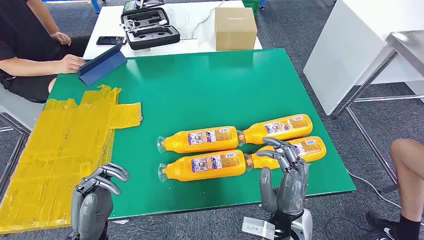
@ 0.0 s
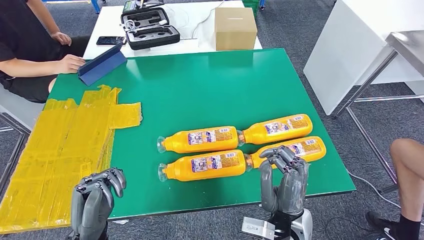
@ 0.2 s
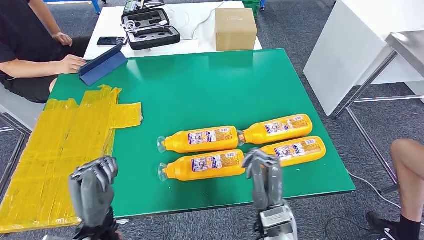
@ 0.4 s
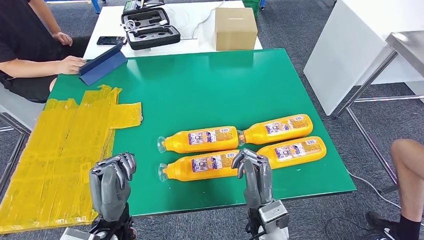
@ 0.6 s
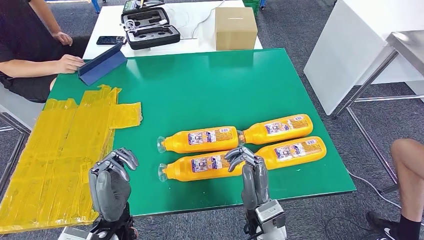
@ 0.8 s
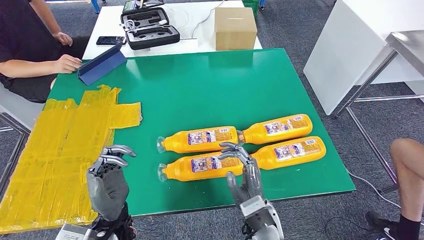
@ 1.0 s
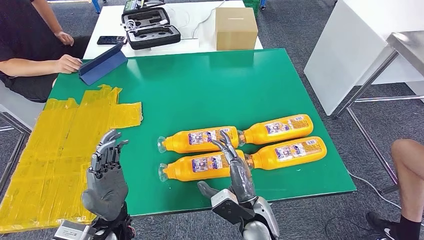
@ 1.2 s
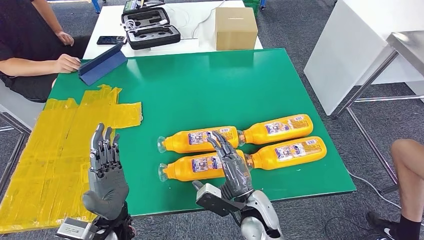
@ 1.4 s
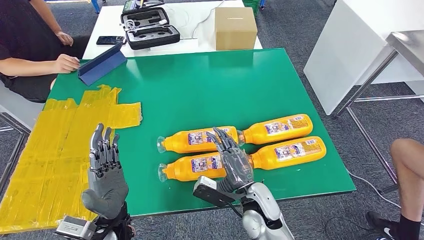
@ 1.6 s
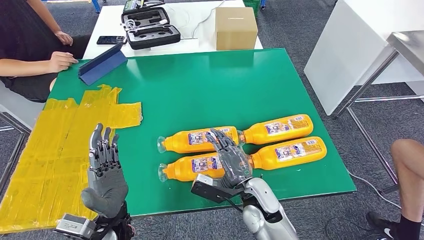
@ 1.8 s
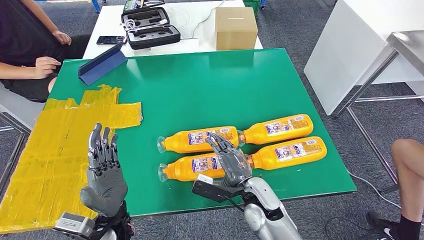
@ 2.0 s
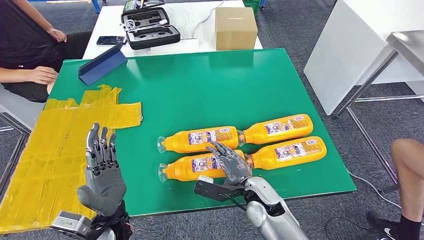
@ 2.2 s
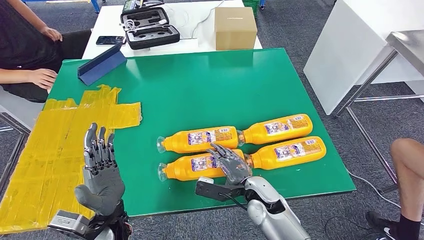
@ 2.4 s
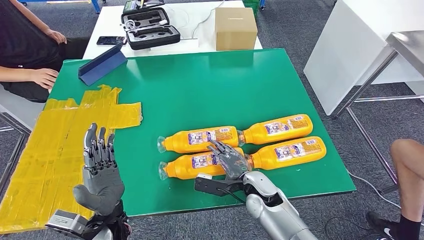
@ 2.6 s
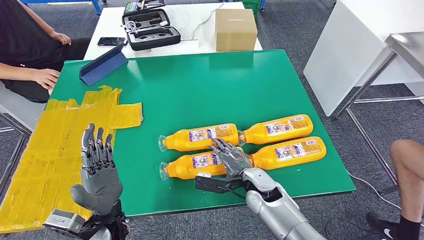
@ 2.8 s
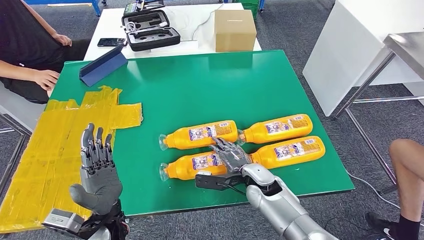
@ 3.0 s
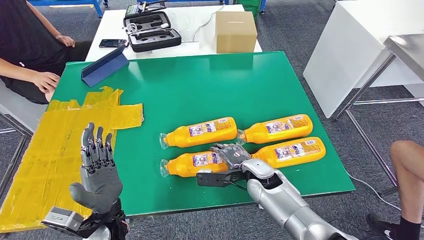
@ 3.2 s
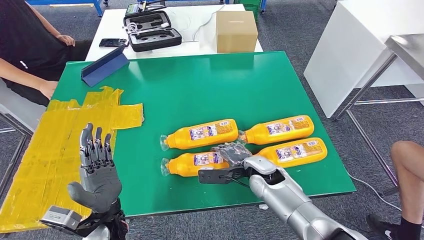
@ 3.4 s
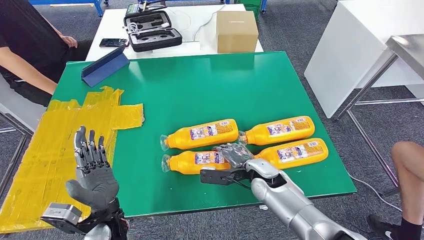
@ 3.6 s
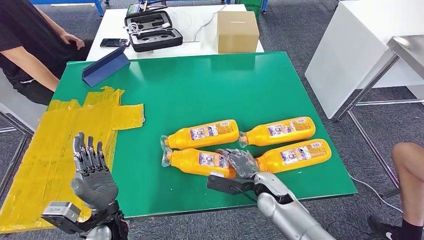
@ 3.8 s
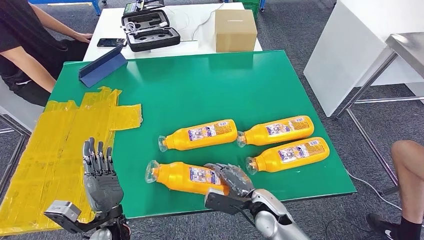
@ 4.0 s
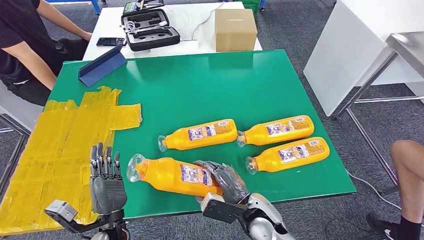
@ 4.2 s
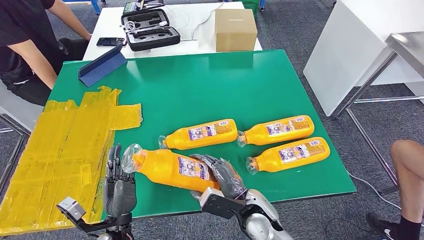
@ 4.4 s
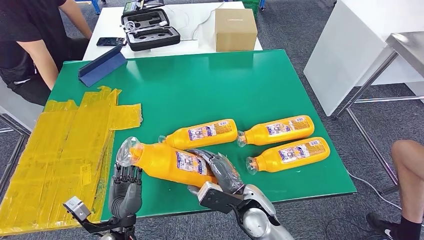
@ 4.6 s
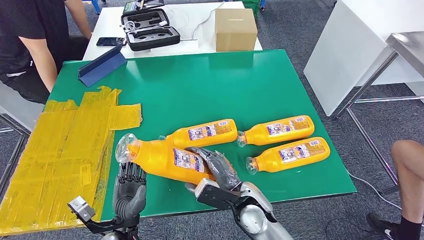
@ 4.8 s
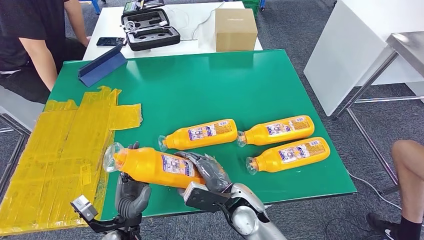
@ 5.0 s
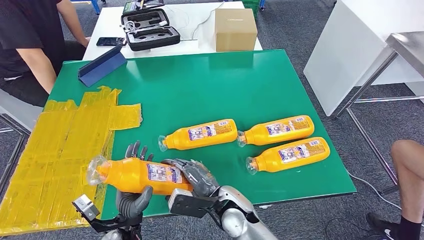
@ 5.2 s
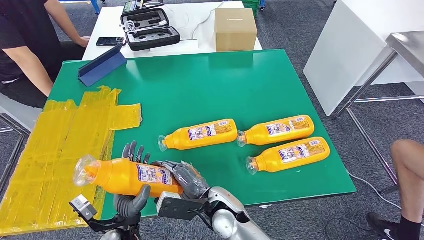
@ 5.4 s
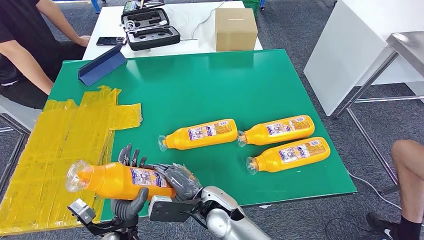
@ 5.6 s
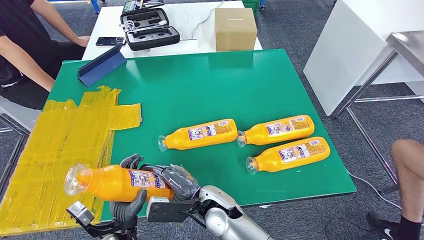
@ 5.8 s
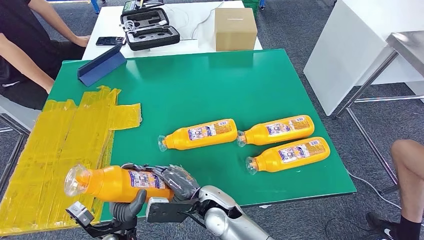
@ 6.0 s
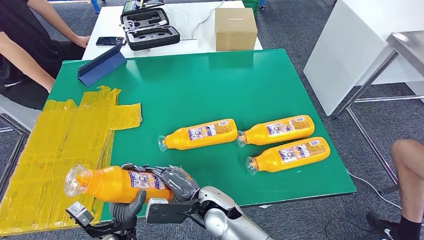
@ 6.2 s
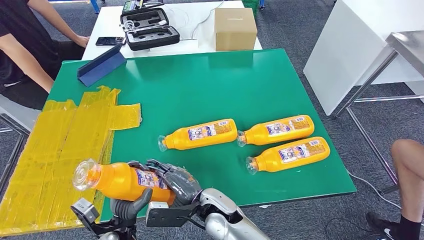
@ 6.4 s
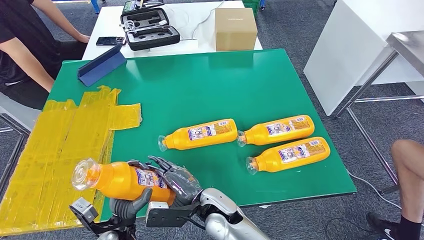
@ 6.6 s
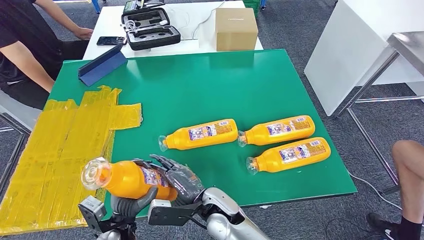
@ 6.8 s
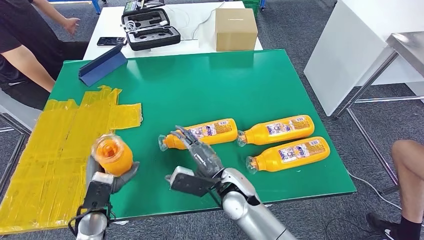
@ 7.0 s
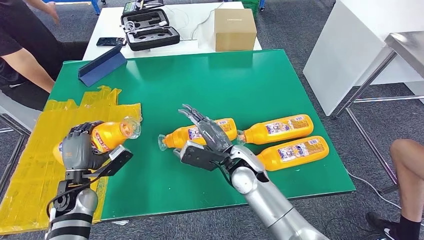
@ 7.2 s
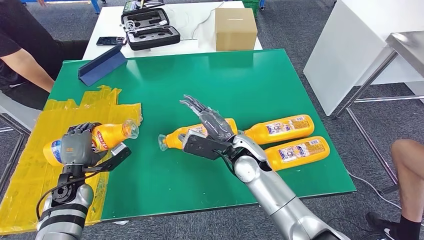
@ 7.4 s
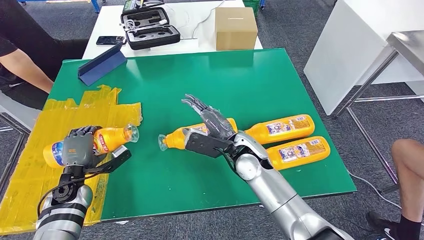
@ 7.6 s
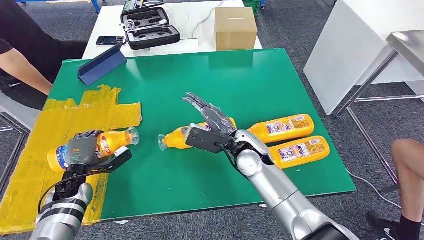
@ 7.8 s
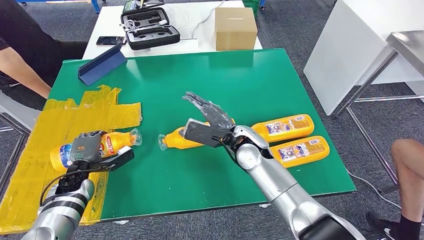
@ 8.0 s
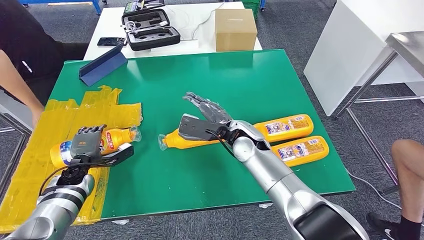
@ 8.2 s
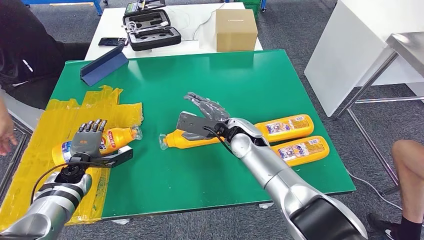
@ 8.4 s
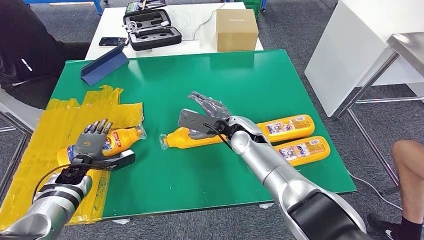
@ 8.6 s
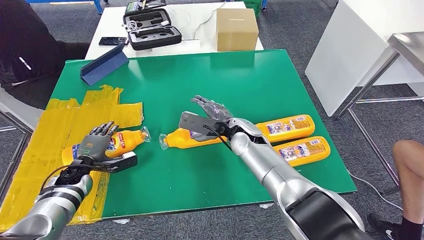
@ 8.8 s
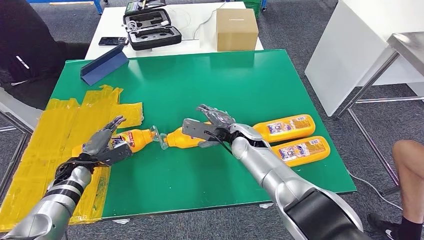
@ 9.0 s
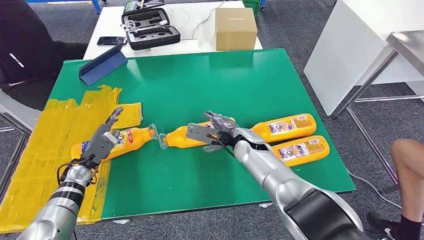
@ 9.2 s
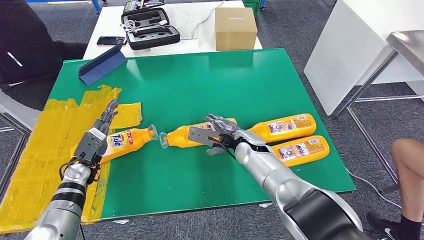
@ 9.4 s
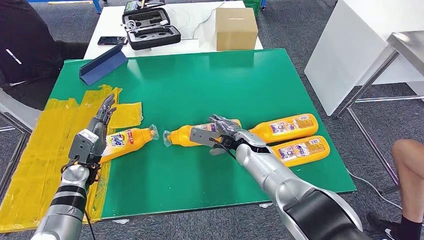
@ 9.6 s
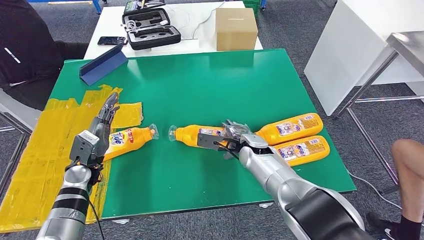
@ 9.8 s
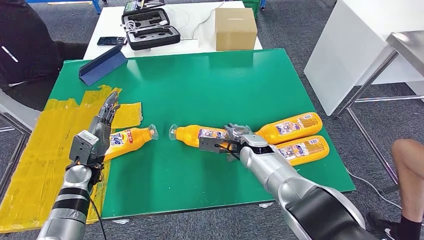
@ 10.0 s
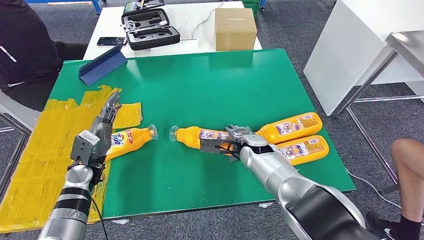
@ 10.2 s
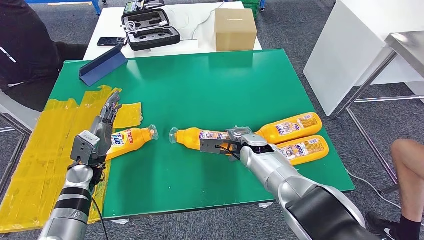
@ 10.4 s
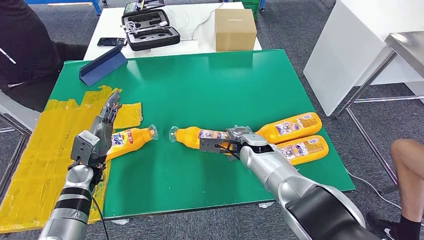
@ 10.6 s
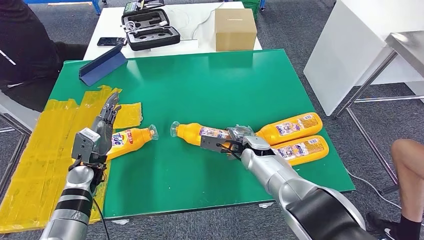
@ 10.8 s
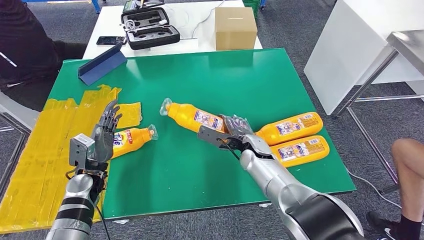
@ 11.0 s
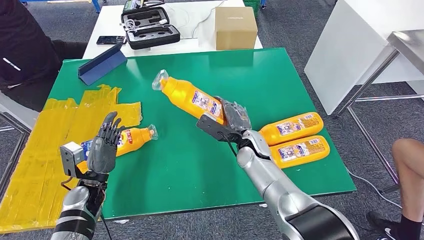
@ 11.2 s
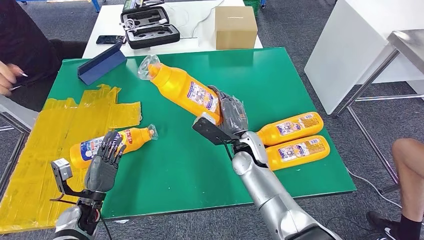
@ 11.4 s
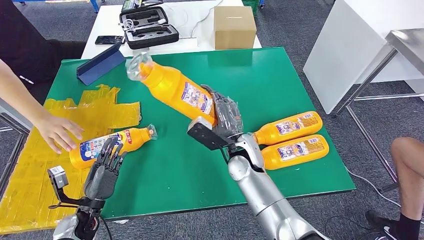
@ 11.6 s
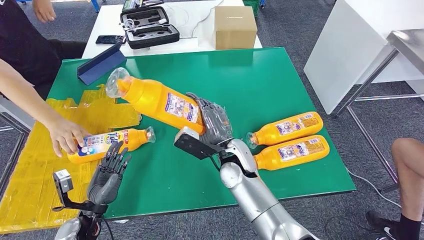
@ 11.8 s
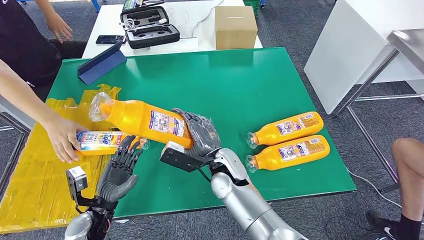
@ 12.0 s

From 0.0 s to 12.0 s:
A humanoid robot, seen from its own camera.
Step, from 0.0 s to 3.8 s: Take the bottle from the table.
Step, from 4.2 s to 9.4 s: Flip the bottle to face forward.
Step, from 9.8 s to 11.8 s: Pick up the bottle from the table.
From 1.6 s to 3.0 s: The right hand goes approximately 5 cm forward.
From 4.4 s to 6.0 s: The right hand travels to the left by approximately 10 cm.
From 9.0 s to 10.4 s: The left hand is displaced to the right by approximately 5 cm. Meanwhile the right hand ends up some 5 cm from where it was.

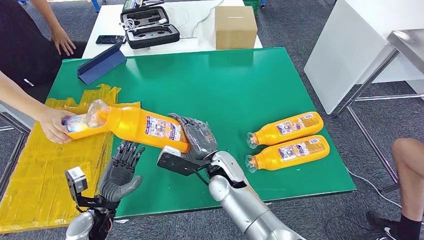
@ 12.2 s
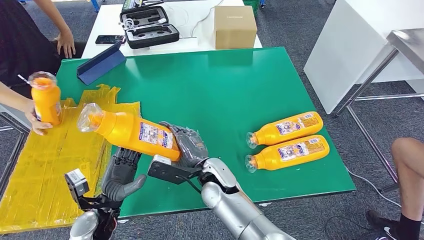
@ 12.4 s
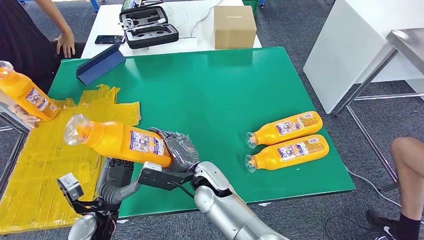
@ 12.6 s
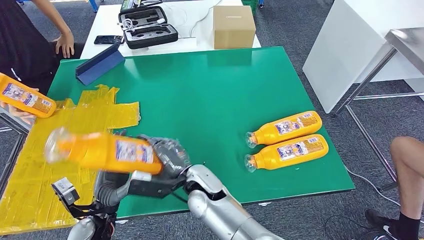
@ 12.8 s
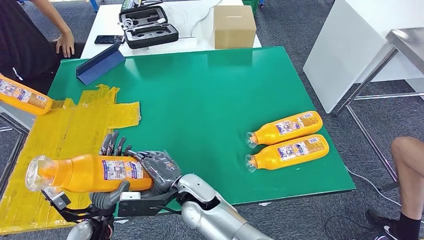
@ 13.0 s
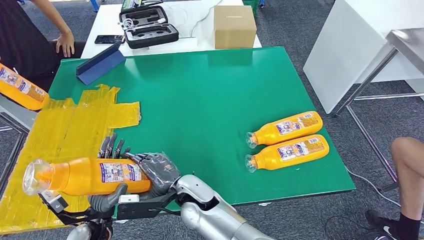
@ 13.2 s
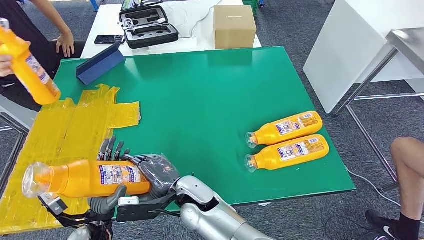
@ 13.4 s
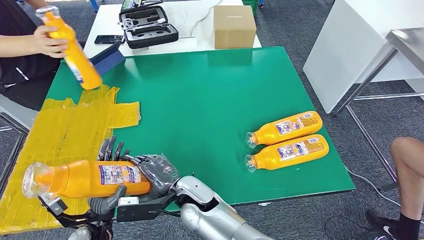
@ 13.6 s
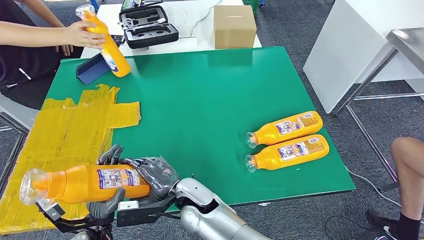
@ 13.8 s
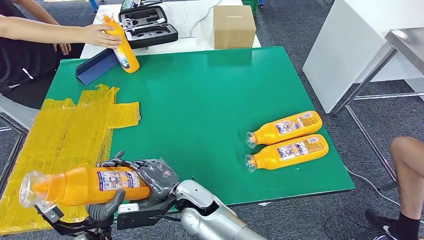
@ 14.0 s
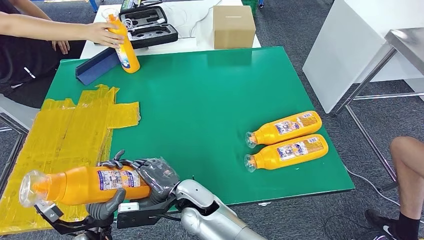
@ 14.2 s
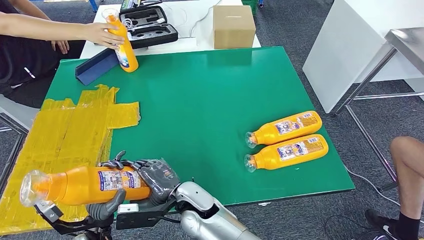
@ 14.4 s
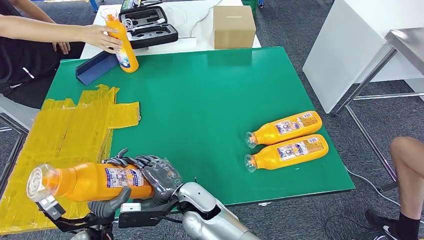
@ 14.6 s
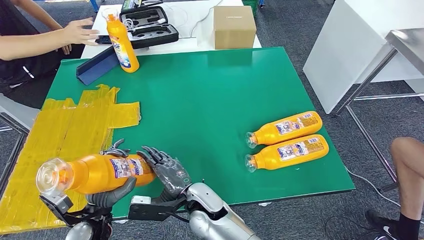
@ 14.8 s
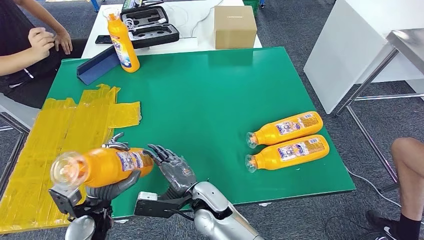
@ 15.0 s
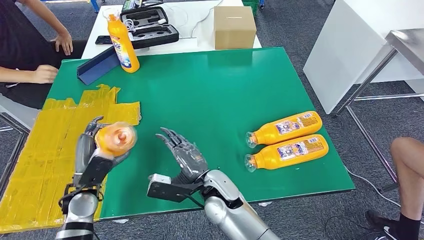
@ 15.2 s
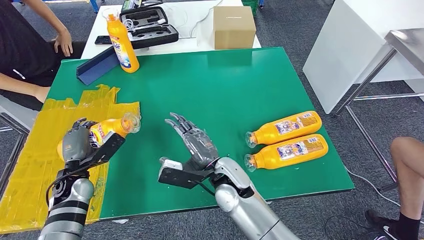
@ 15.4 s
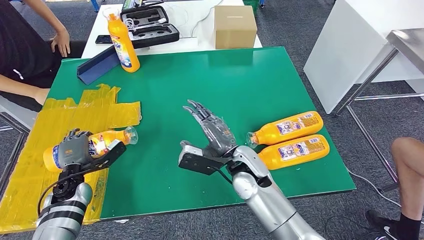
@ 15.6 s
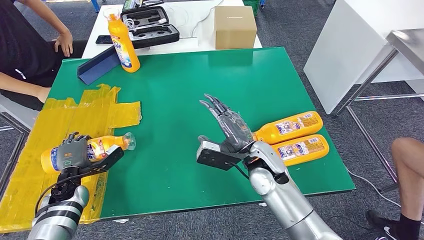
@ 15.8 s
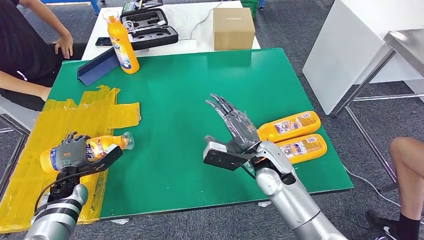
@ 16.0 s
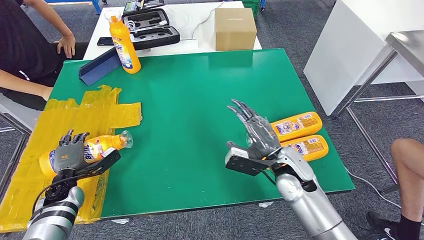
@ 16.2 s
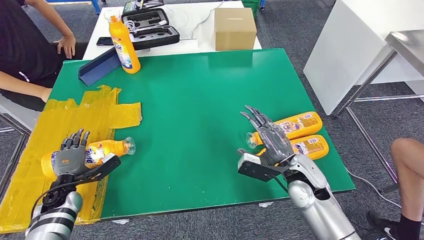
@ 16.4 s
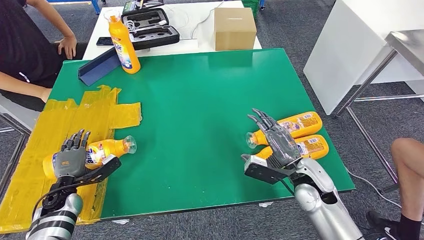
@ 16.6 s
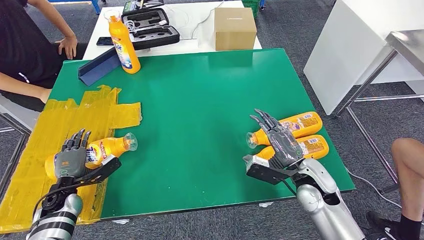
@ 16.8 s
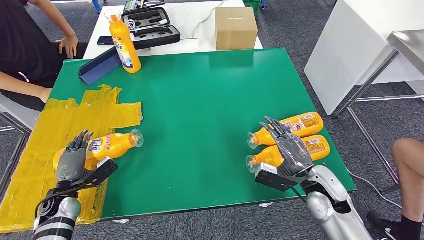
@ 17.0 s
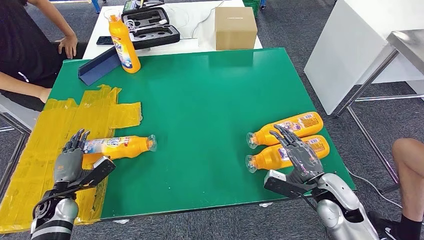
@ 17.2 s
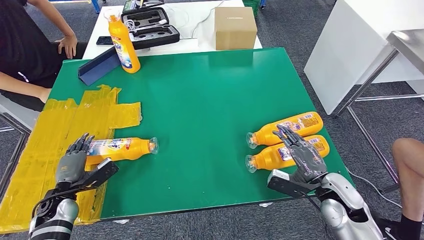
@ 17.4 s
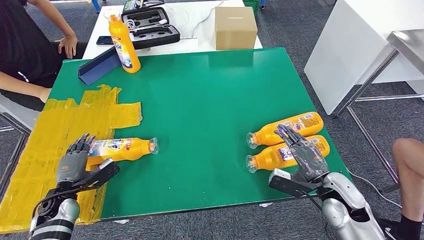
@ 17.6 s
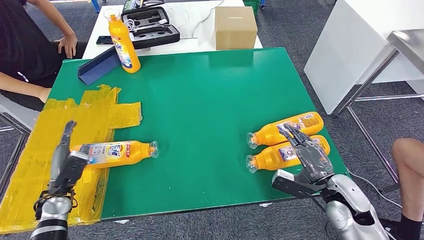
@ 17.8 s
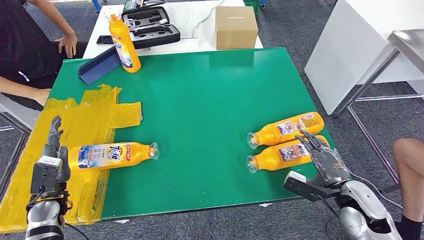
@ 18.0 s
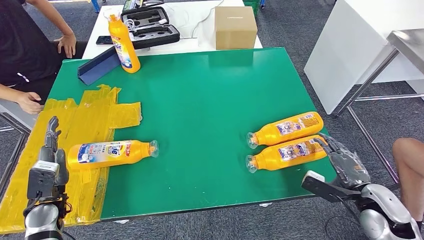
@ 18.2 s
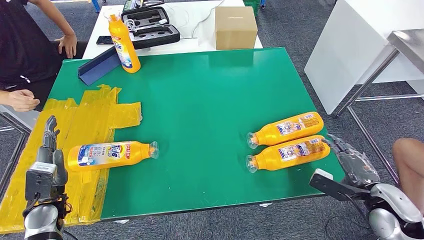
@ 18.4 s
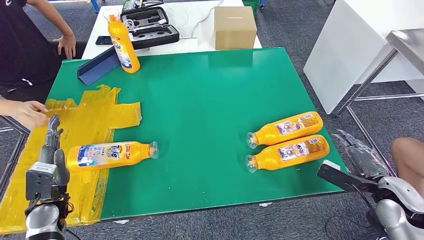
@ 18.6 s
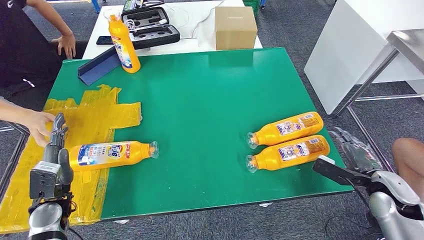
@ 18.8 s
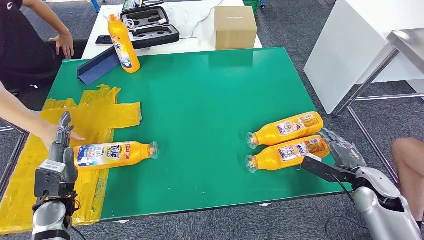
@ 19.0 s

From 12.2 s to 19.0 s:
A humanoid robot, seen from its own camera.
Step, from 12.2 s to 17.0 s: Flip the bottle to face forward.
From 16.2 s to 17.6 s: The right hand moves to the right and backward, about 15 cm.
